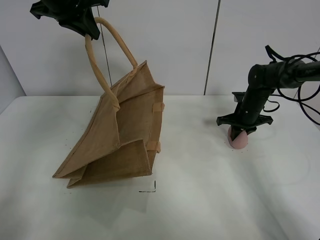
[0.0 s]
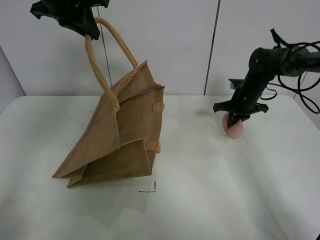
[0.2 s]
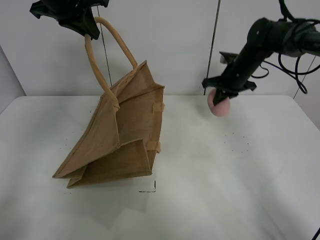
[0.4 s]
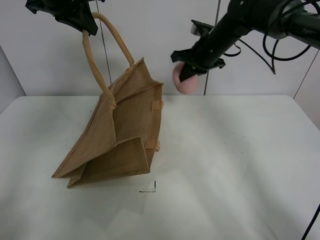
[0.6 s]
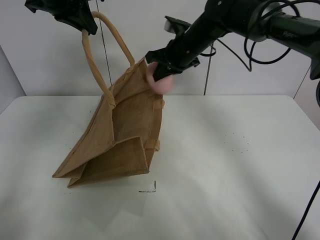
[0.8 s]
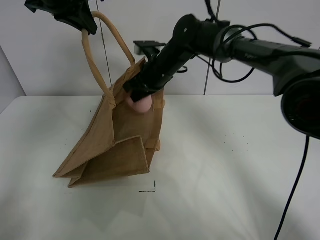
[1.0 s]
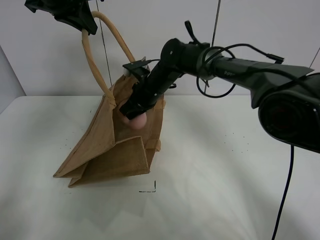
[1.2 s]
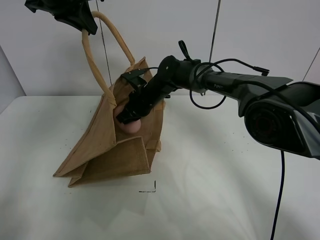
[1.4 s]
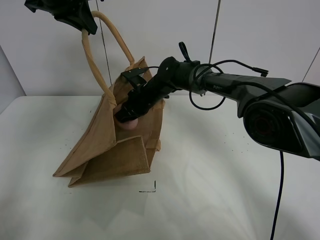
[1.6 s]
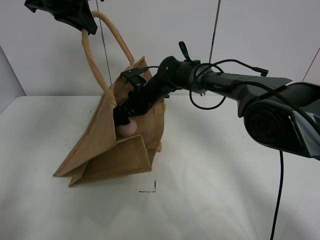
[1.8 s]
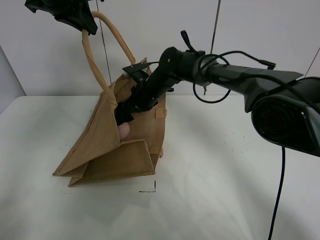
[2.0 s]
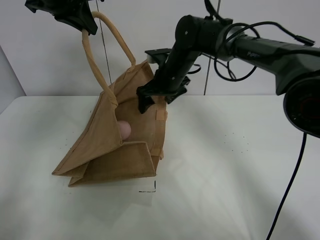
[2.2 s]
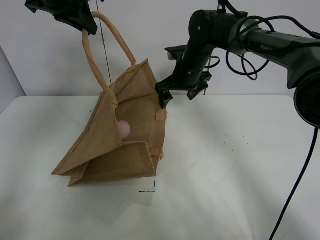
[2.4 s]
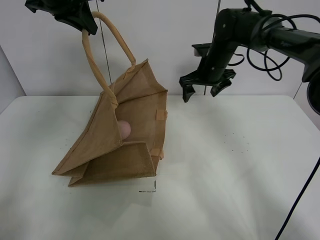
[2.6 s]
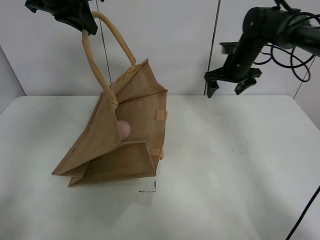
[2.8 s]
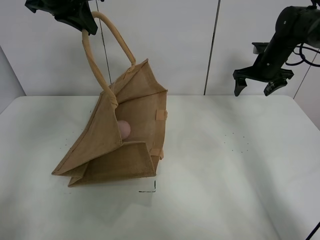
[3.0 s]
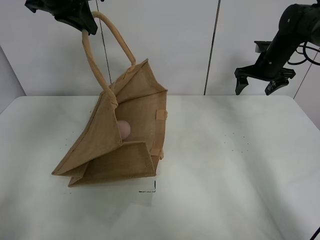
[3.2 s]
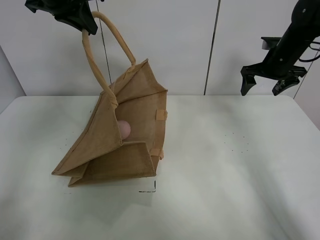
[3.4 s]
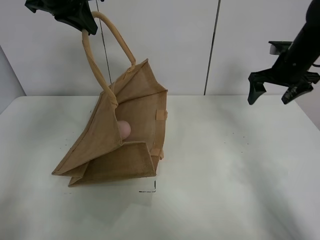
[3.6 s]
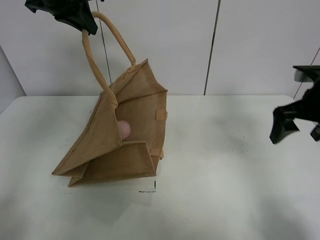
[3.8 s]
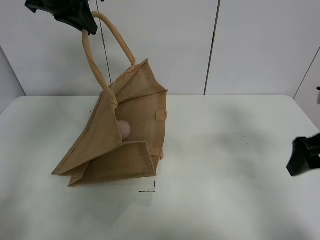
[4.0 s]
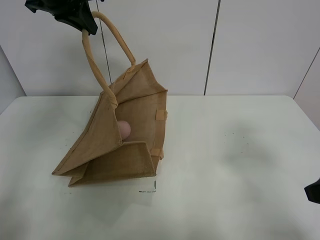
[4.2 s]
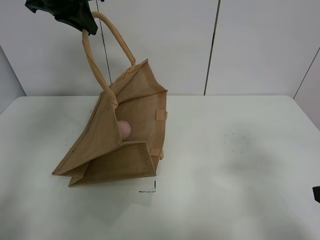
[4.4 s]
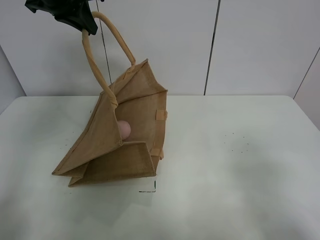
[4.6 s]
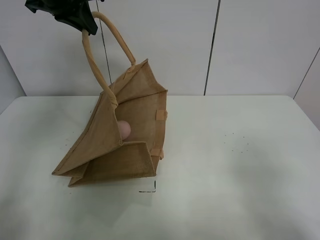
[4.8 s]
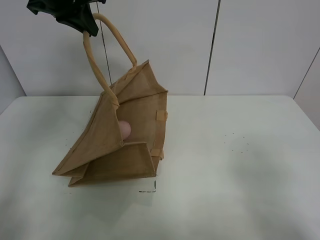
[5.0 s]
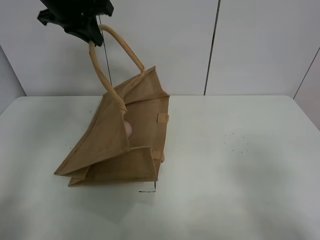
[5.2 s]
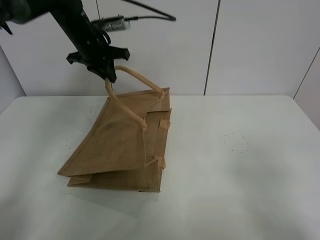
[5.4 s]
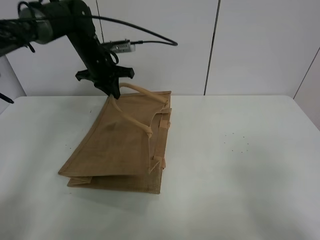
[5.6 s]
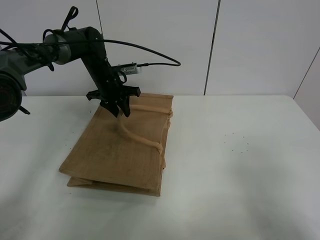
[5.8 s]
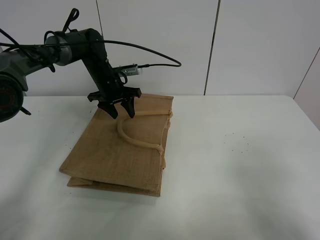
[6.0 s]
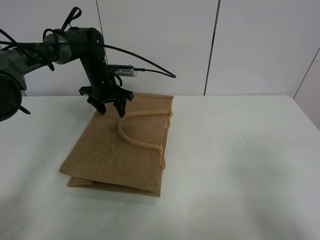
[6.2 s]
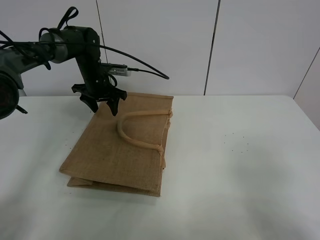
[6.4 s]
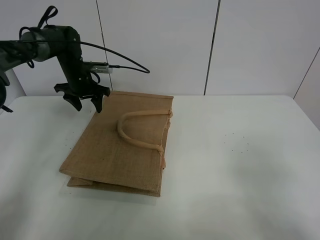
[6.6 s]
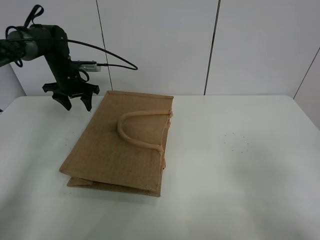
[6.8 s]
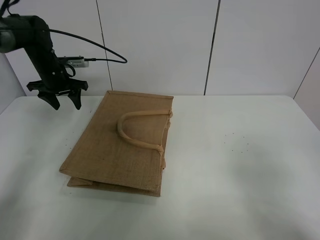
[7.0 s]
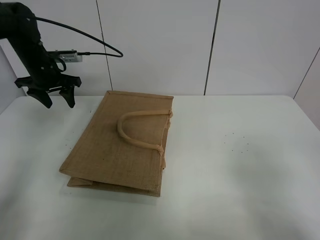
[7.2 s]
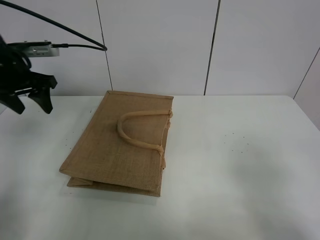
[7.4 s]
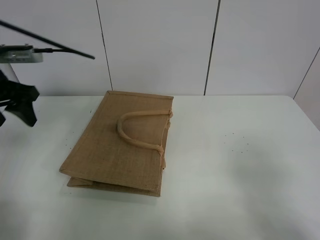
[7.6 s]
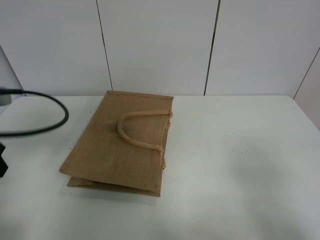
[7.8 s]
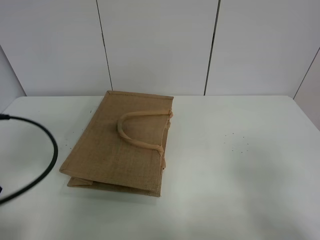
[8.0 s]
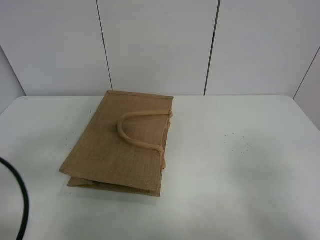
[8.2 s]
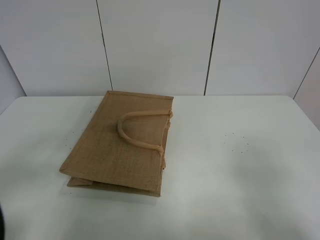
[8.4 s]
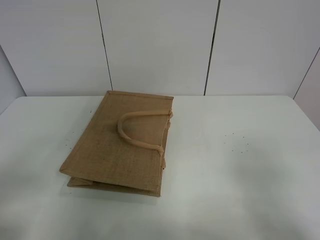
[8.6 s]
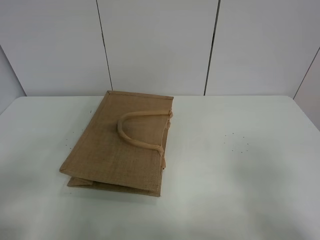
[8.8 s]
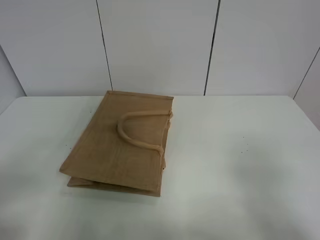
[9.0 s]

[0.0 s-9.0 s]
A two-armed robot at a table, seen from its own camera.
Task of the whole recording: open the brown linen bag and put the peach in the bag.
Step, 0.2 to 2.4 s: Place the peach in the handbag with right gripper.
Step, 2.6 to 6.6 s: Put down the handbag with left grippe.
0.0 to 1.6 s: The right gripper heads to the left, covering roughly 30 cm.
1.6 to 3.0 s: The right gripper is displaced to the right by about 30 cm, and opens up.
3.0 to 4.4 s: The right gripper shifts some 40 cm backward.
4.4 to 6.0 s: The right gripper goes some 5 cm backward, while the left gripper is displaced downward and forward by some 25 cm, and opens its fingers.
6.0 to 7.6 s: The left gripper shifts some 30 cm backward, to the left and upward.
7.6 to 9.0 s: The left gripper travels backward by about 25 cm.
